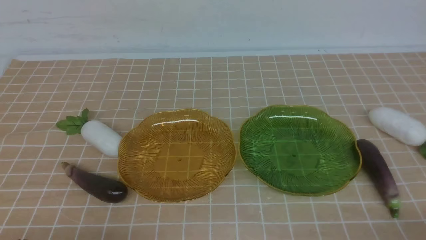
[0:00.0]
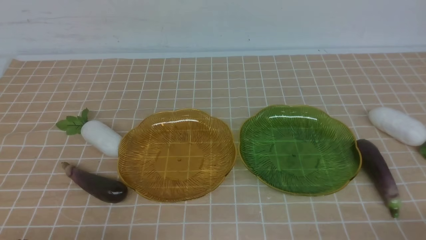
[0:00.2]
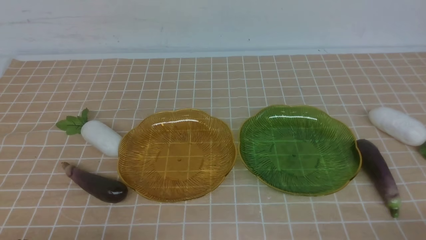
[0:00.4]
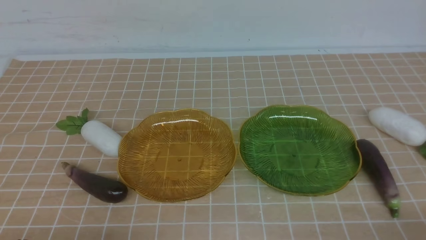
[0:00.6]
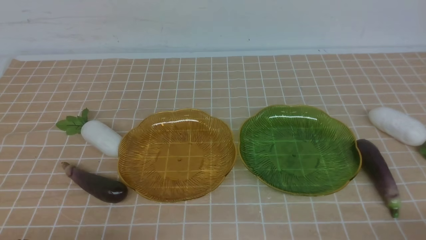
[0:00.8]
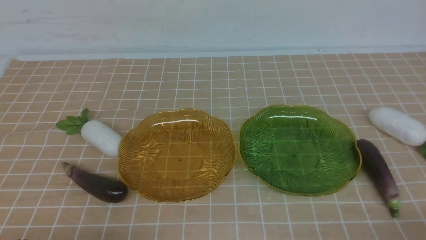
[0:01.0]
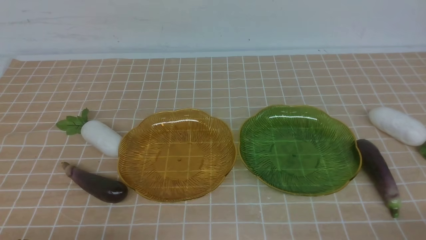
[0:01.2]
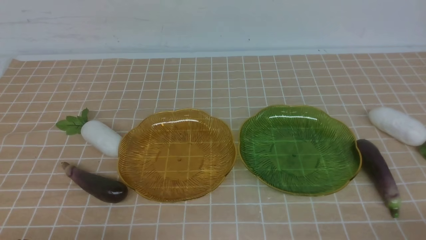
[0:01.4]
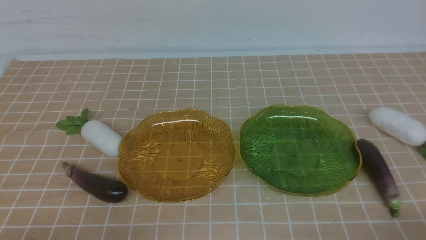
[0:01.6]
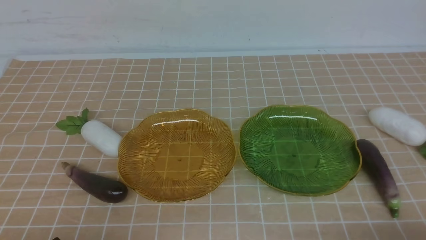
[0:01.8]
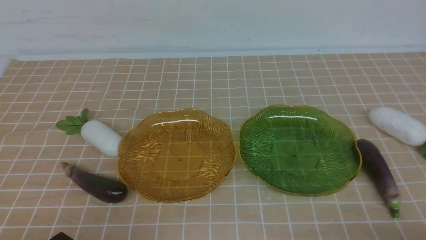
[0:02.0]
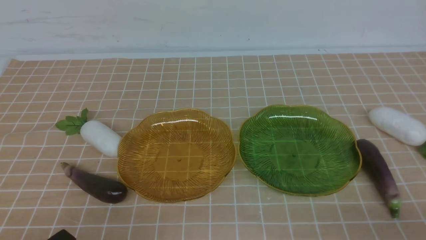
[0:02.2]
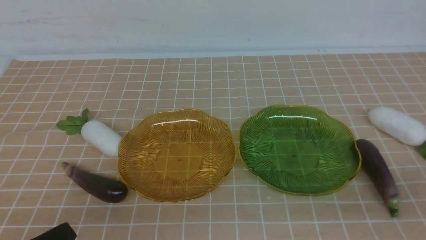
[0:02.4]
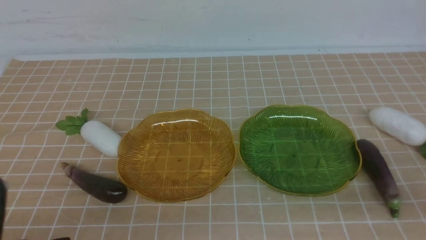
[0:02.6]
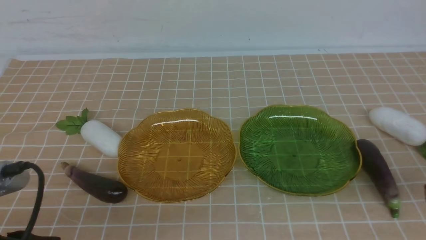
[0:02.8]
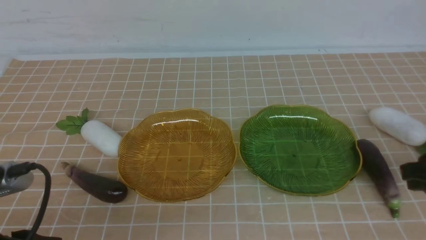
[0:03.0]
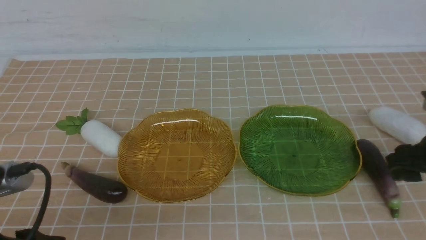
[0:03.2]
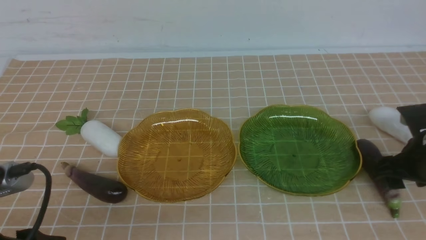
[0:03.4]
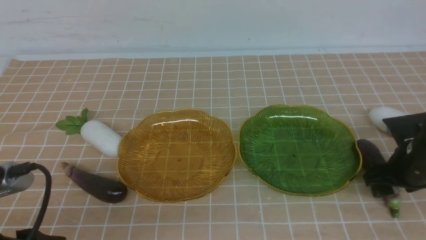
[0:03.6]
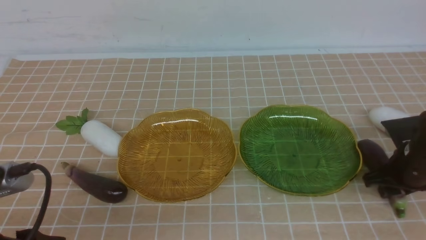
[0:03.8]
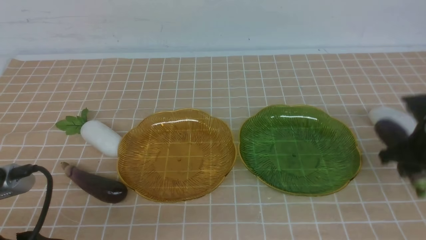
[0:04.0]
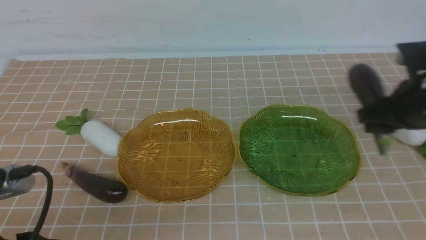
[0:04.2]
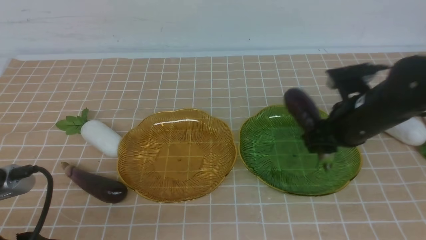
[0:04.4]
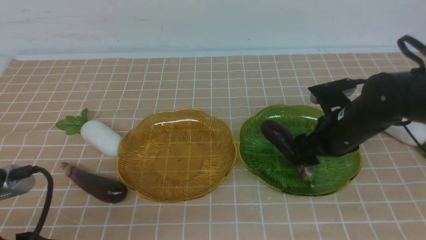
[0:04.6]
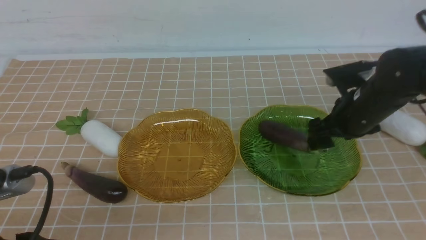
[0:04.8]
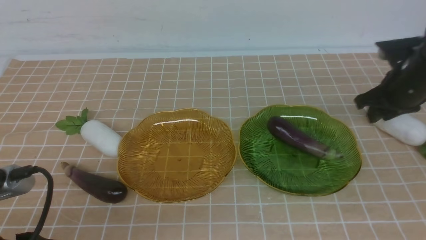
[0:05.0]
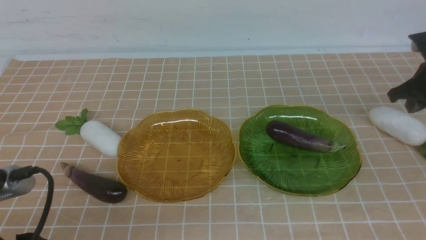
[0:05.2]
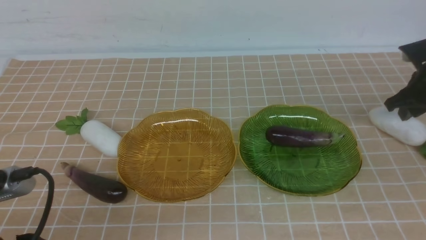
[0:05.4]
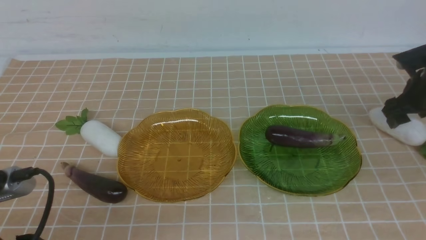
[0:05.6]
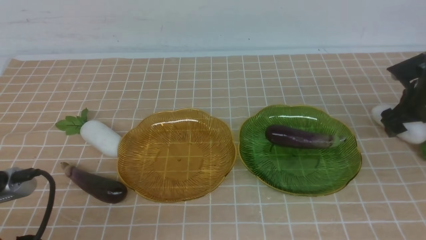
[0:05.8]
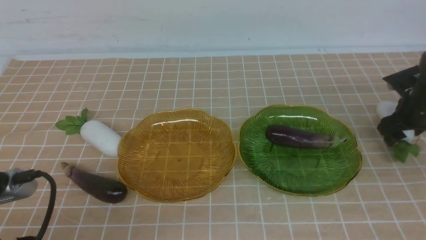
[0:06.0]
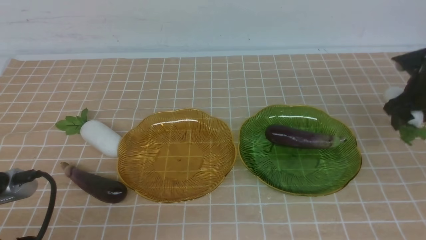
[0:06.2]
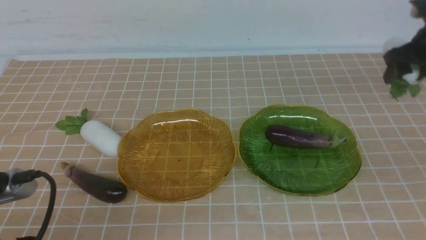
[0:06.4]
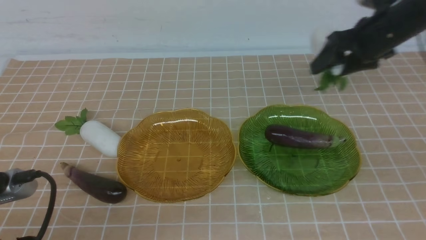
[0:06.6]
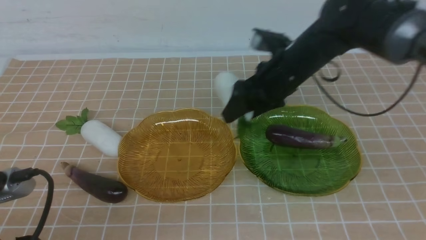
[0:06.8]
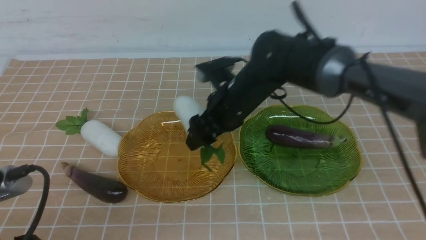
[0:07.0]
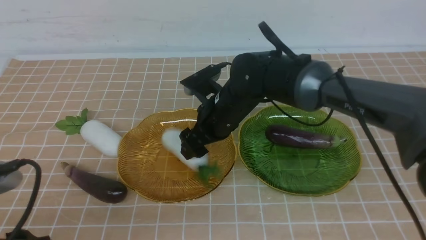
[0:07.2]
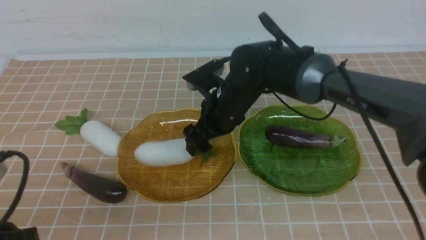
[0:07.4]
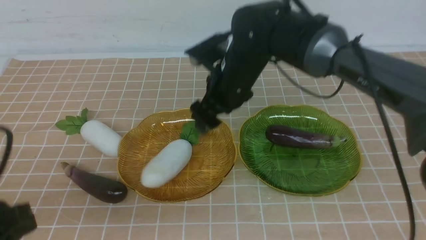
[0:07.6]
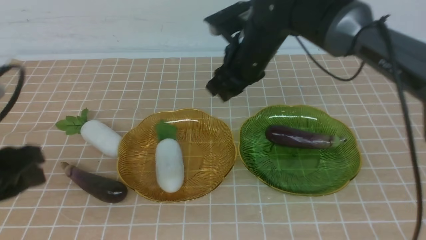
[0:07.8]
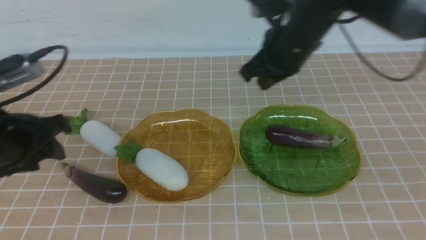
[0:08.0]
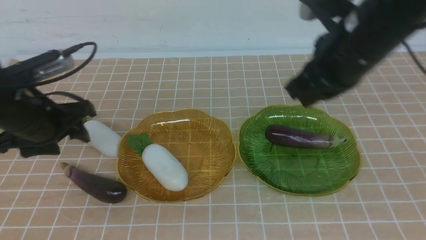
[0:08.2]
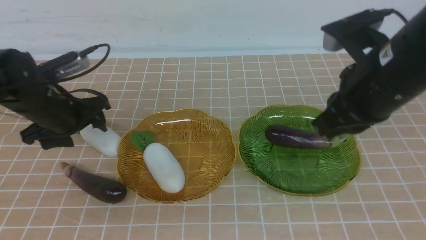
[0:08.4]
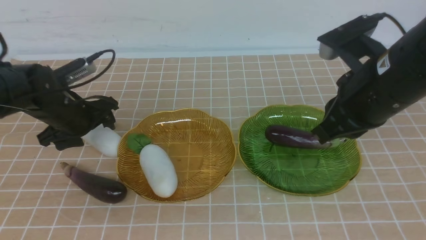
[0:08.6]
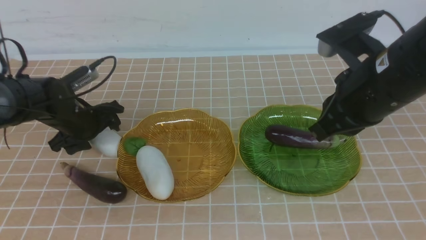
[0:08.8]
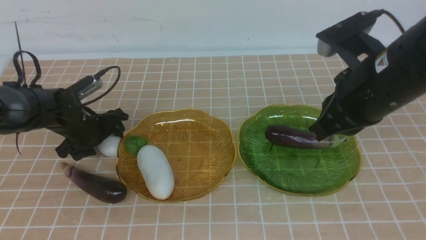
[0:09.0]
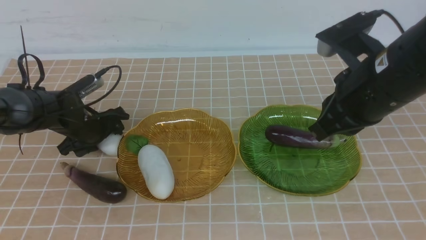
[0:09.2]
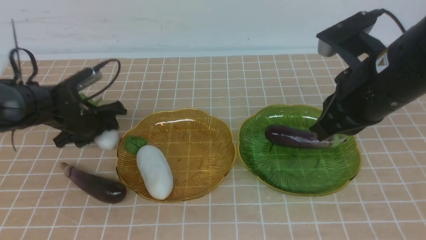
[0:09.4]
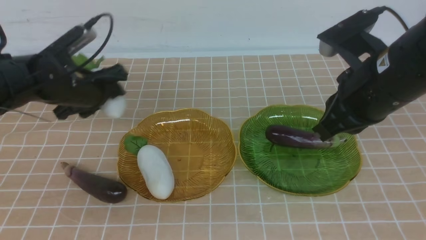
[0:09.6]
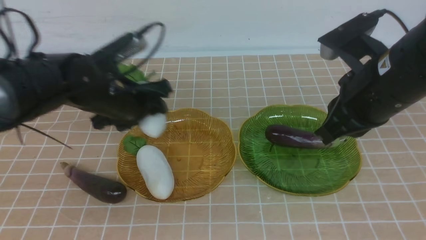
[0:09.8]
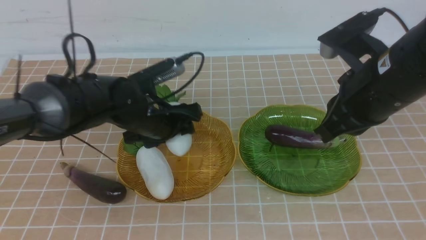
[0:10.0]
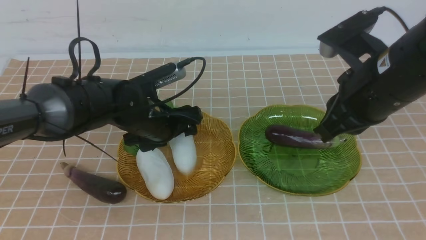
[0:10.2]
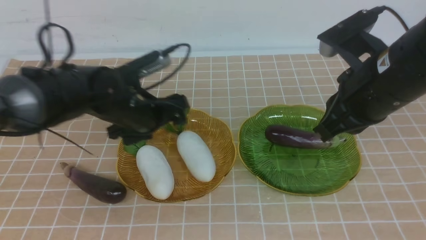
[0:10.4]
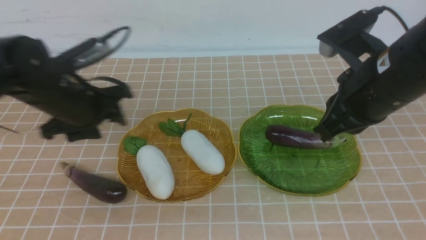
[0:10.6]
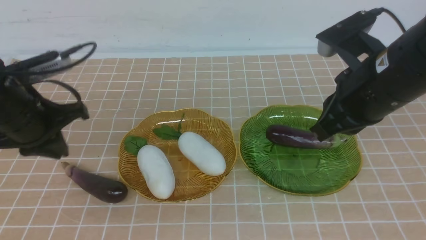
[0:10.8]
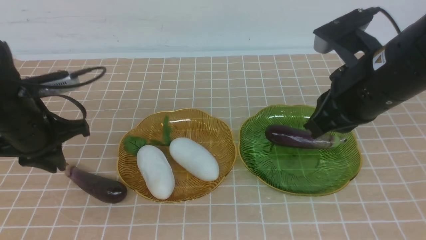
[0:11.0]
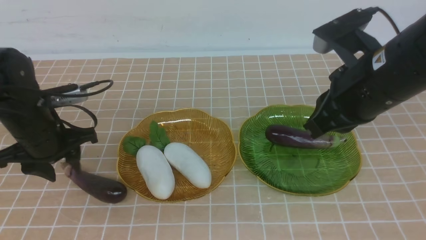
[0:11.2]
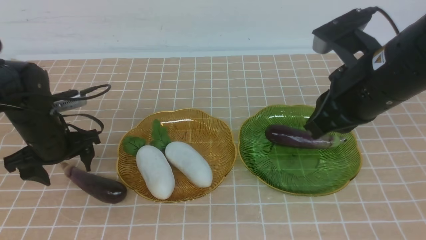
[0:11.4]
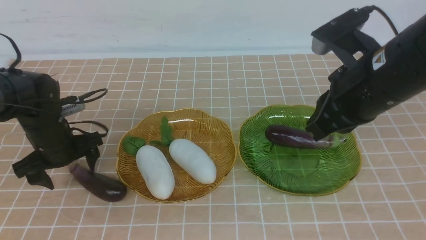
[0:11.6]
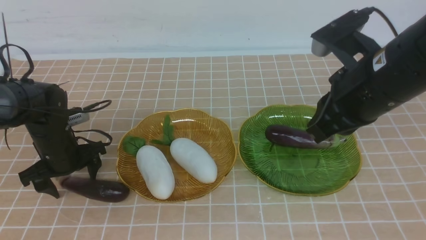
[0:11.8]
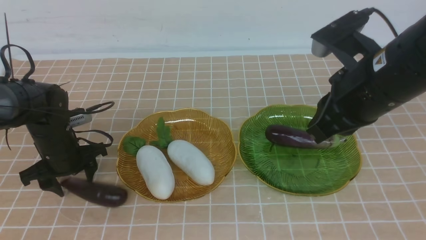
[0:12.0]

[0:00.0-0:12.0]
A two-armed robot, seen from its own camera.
Step, 0:00.0 to 0:04.8: use the right arm to grab an eggplant and put it into the right plate.
Step, 0:05.0 to 0:07.4: use the right arm to grab a radish and put it into the left plate.
Step, 0:07.6 to 0:10.4: use the left arm to grab a radish and put it into the left plate.
0:01.6 to 0:03.0: The right gripper moves forward, about 20 cm, and opens. The left gripper travels upward by roughly 10 cm, and opens its fingers.
0:03.0 to 0:04.4: The right gripper is displaced to the left and forward by about 10 cm.
0:04.4 to 0:06.0: The right gripper travels to the right and forward by about 20 cm.
0:06.0 to 0:07.6: The right gripper goes about 35 cm to the left.
0:07.6 to 0:09.0: The left gripper shifts some 30 cm forward and downward; the right gripper heads to the right, backward and upward, covering some 20 cm, and closes its fingers.
0:09.0 to 0:10.4: The left gripper travels upward and backward by approximately 15 cm, and goes to the right and returns, approximately 15 cm each way.
0:10.4 to 0:12.0: The left gripper heads downward and to the left, covering about 10 cm, and opens, then closes again.

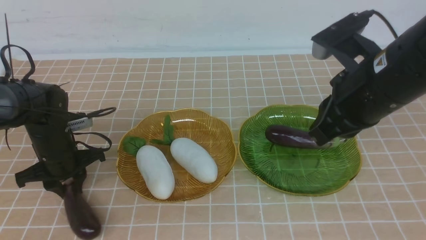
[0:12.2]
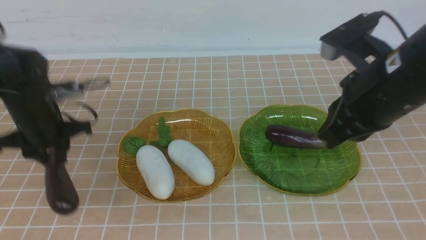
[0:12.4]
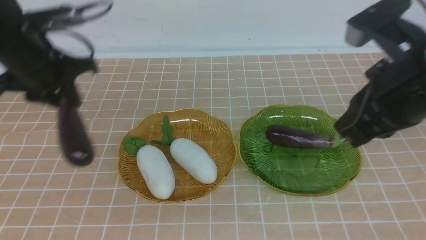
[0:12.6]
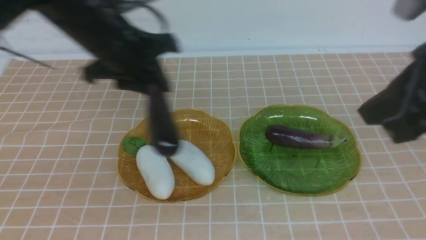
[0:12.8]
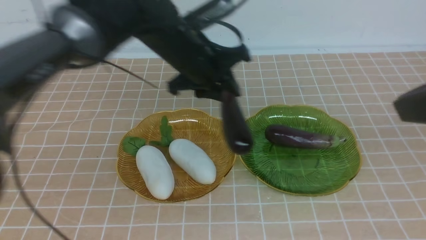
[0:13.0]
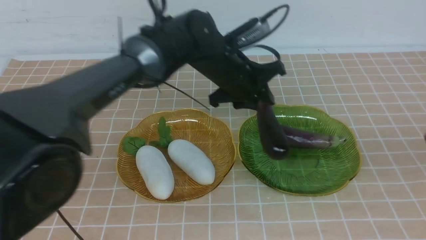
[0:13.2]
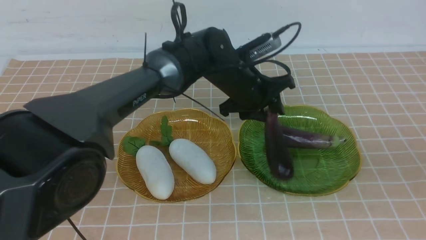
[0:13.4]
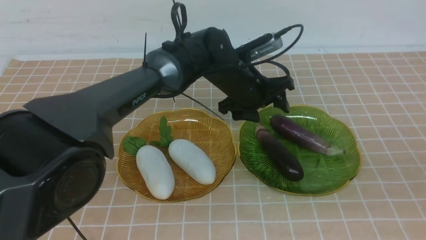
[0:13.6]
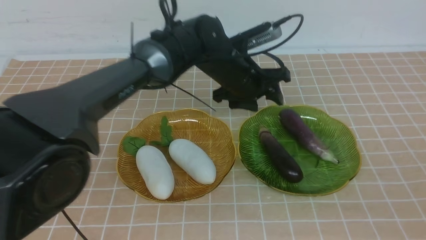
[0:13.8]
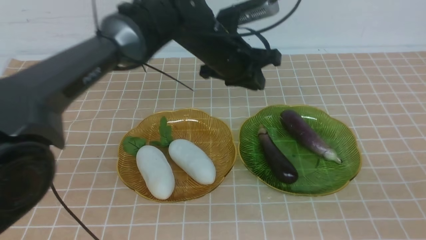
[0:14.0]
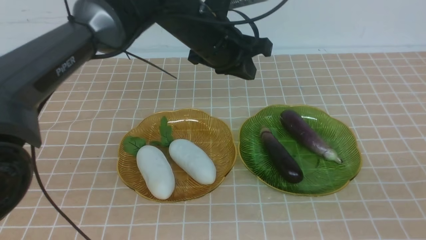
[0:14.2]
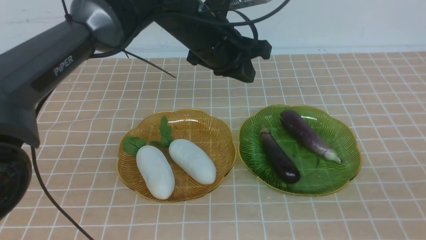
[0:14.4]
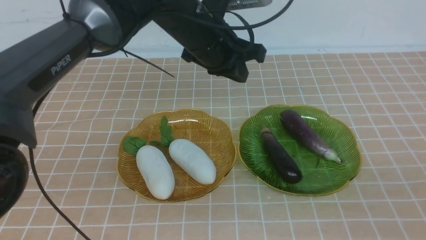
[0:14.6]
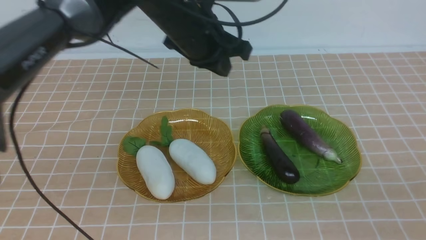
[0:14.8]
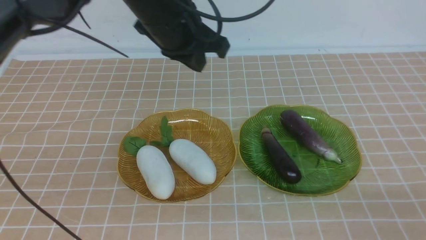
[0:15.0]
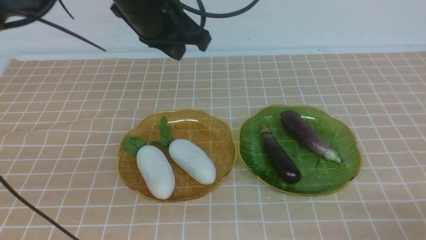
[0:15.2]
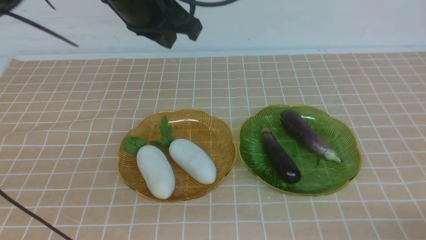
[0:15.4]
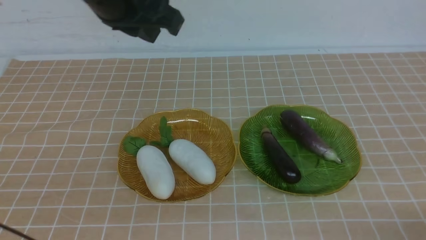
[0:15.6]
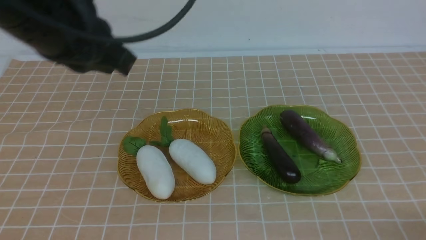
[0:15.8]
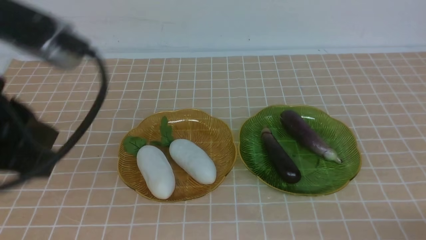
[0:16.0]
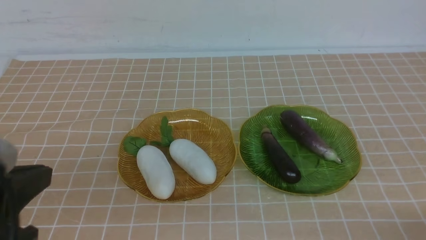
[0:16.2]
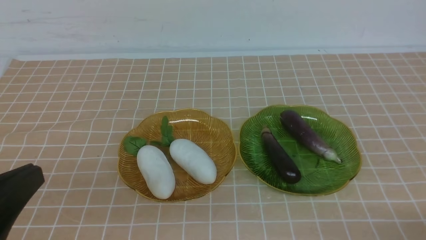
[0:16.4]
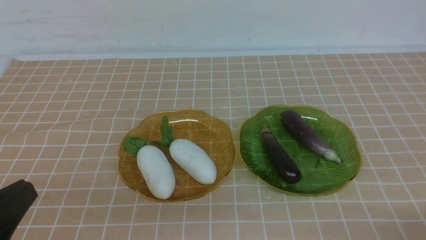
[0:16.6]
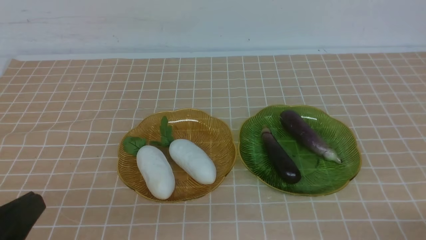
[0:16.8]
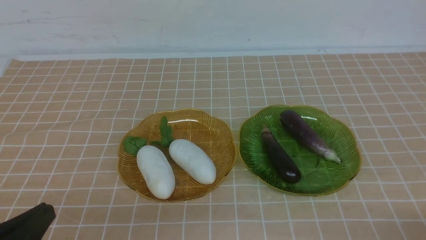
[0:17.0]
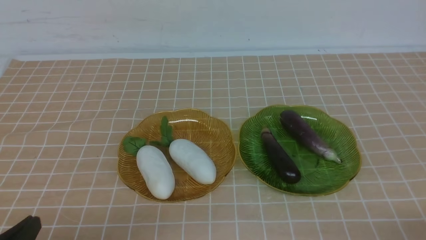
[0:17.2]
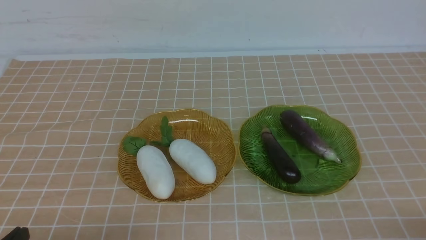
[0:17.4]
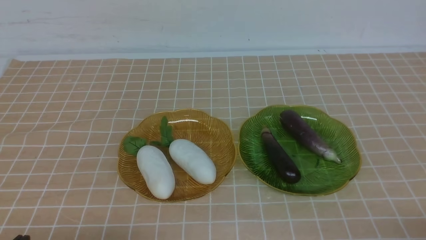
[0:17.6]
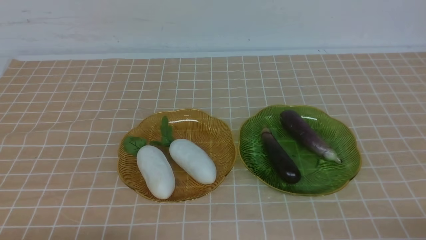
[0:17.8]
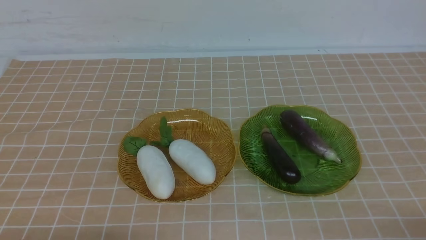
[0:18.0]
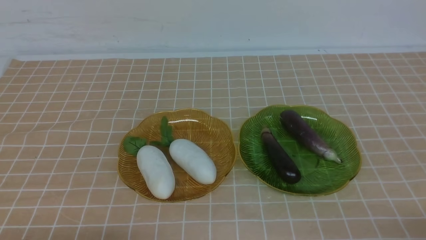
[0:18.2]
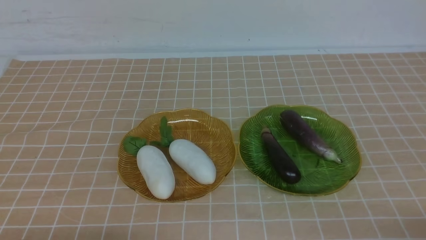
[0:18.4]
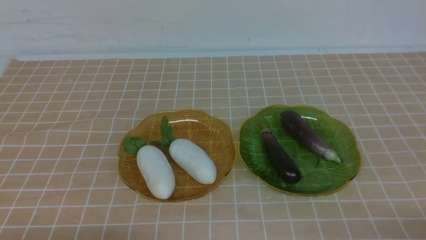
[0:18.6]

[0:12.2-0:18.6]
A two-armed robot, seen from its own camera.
0:12.2 to 0:13.8: The right gripper heads backward and to the right, covering roughly 25 cm. The left gripper travels to the right by approximately 25 cm.
0:13.8 to 0:15.4: The right gripper travels downward by some 20 cm, while the left gripper goes some 20 cm upward, to the left and backward, and closes up.
0:15.4 to 0:17.0: The left gripper shifts roughly 35 cm backward, downward and to the left.
0:17.0 to 0:18.6: The left gripper moves downward, roughly 5 cm.
